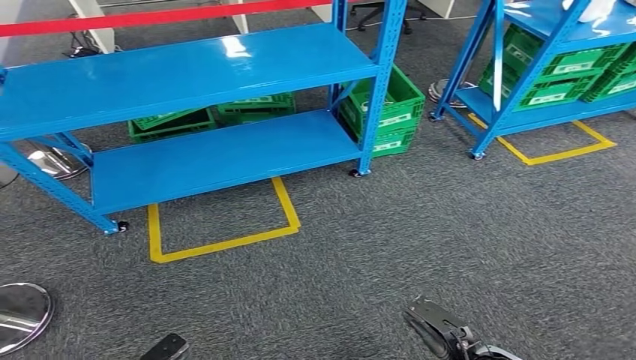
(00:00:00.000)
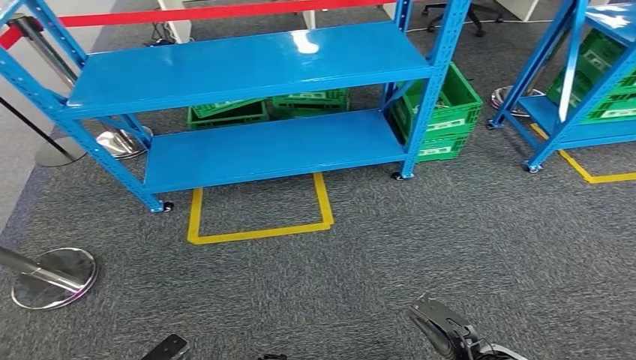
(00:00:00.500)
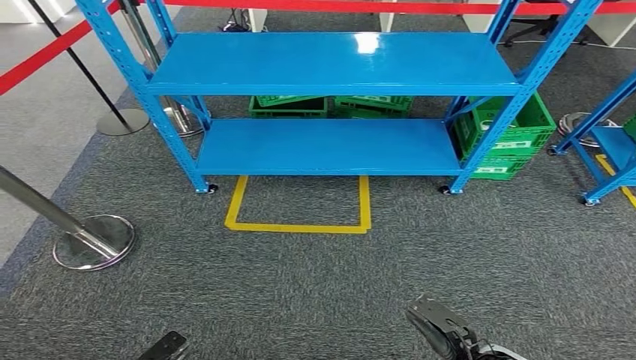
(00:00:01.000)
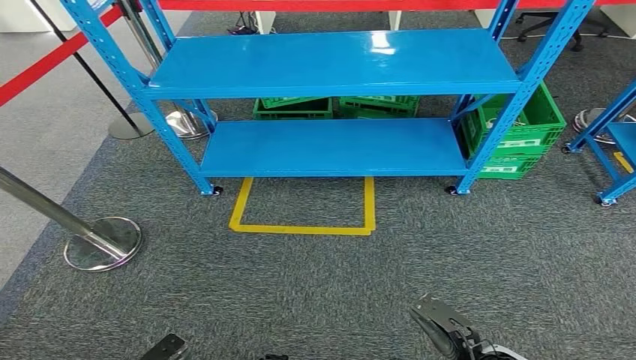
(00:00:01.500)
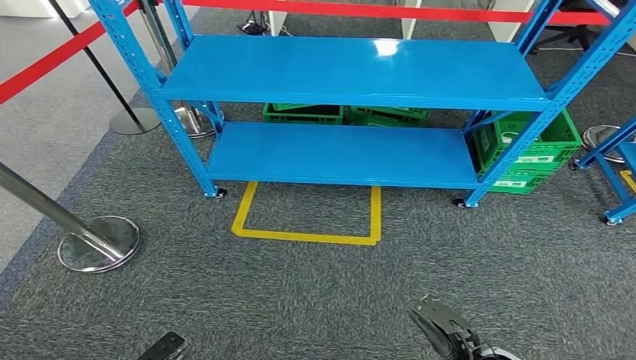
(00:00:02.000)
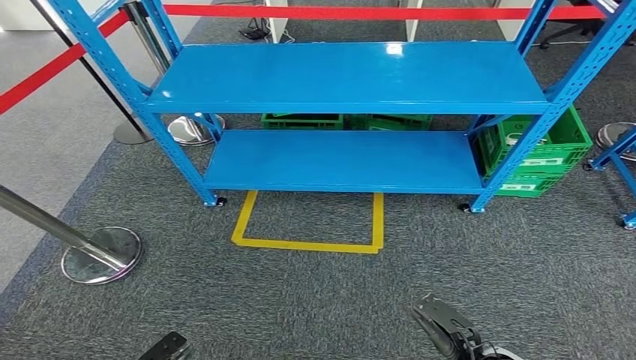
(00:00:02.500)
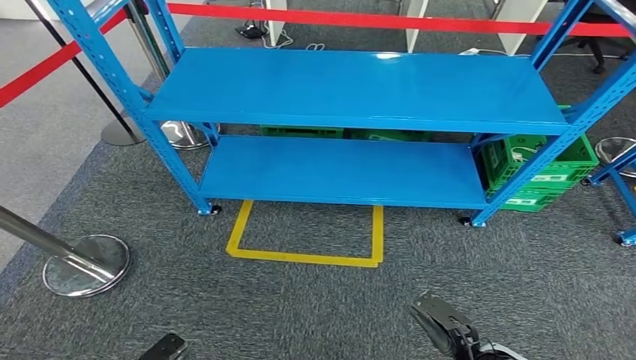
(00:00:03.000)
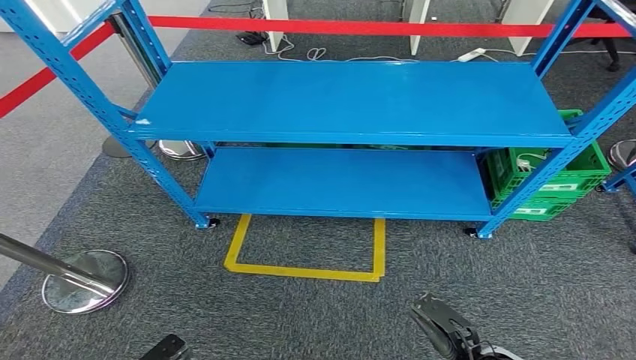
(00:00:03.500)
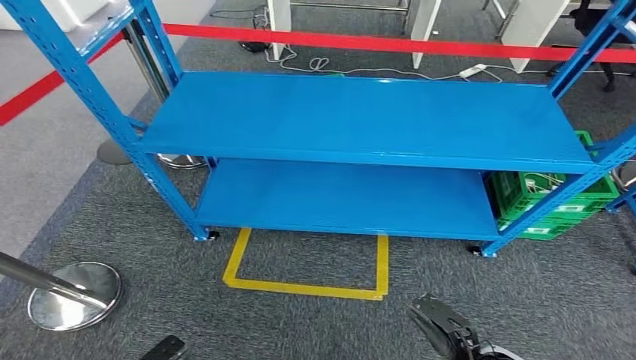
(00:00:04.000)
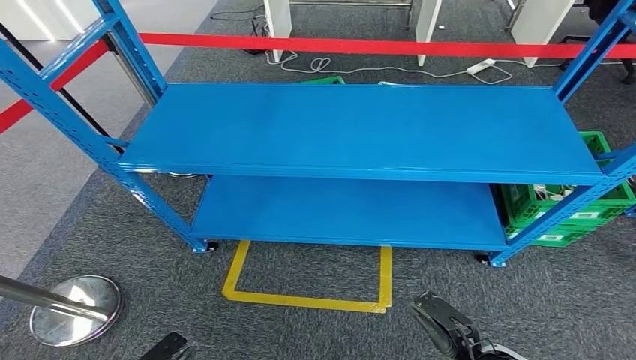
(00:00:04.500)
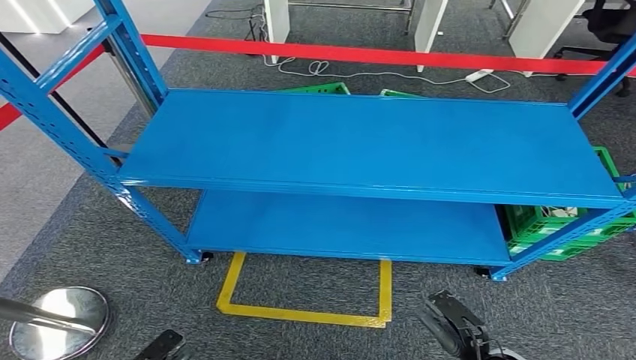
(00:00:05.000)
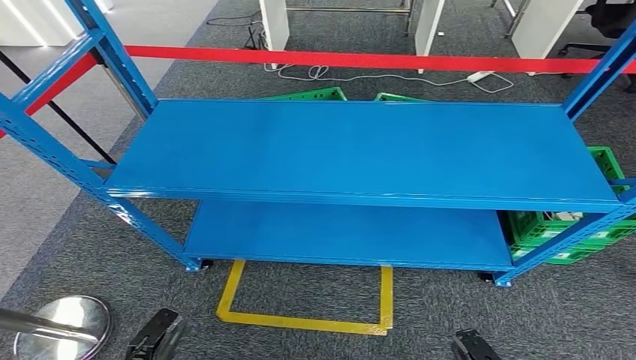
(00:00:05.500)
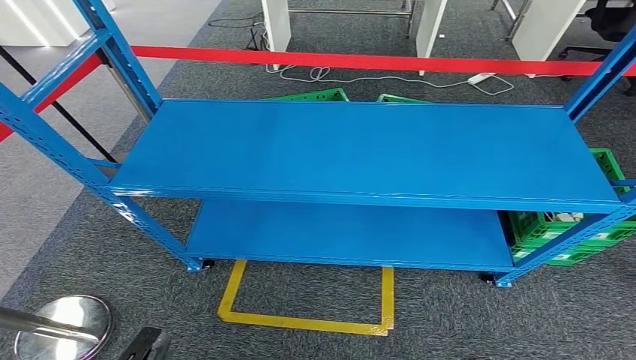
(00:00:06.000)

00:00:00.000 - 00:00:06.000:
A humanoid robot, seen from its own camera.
Step, 00:00:00.000 - 00:00:06.000: Return to the initial position at the workbench.
